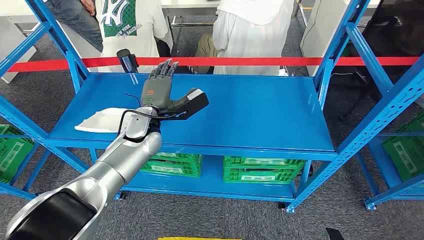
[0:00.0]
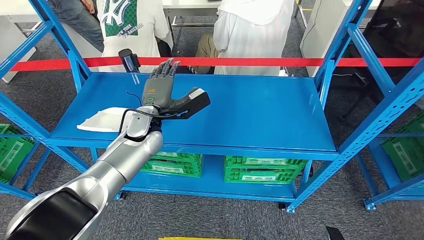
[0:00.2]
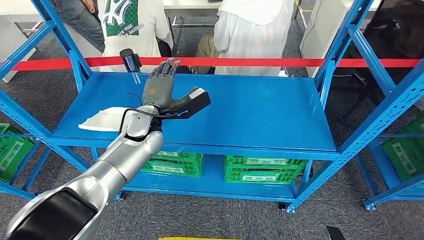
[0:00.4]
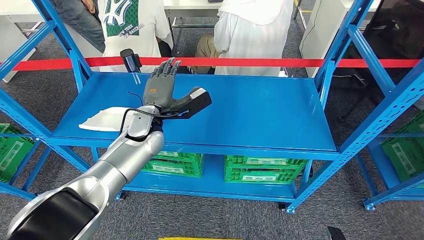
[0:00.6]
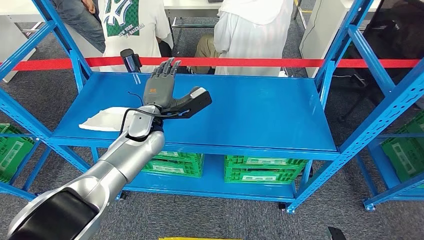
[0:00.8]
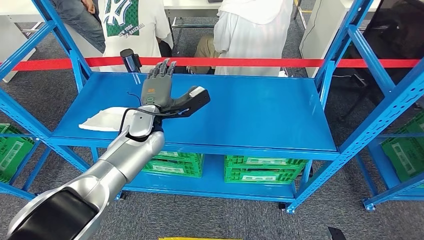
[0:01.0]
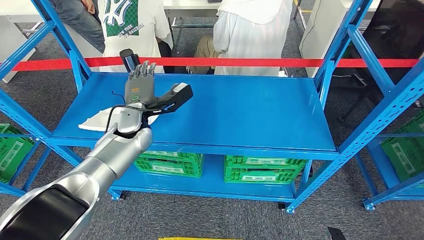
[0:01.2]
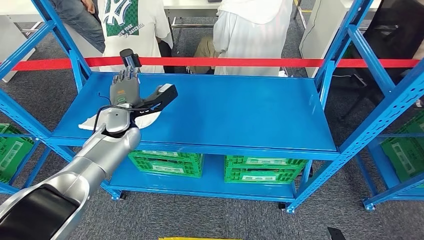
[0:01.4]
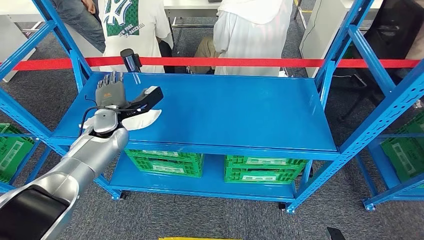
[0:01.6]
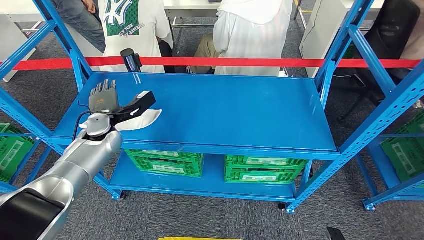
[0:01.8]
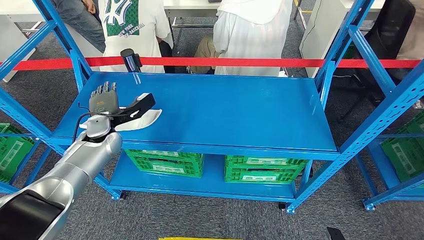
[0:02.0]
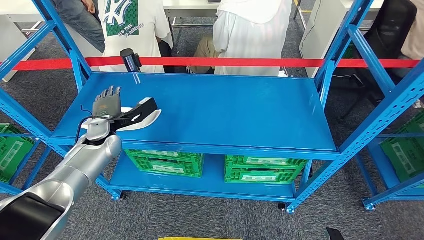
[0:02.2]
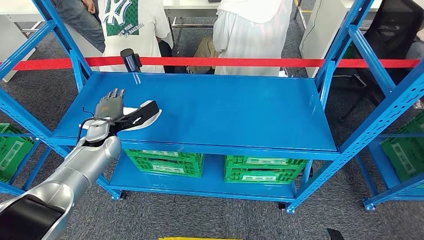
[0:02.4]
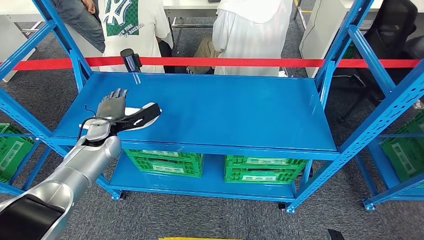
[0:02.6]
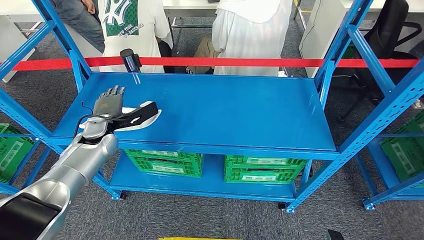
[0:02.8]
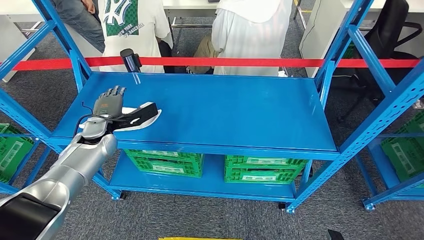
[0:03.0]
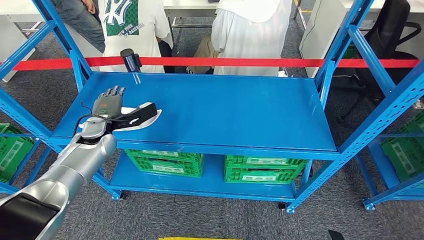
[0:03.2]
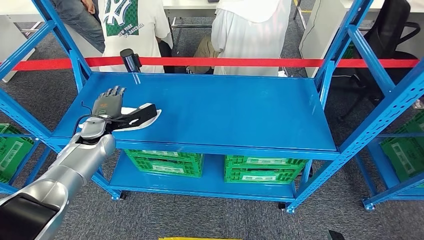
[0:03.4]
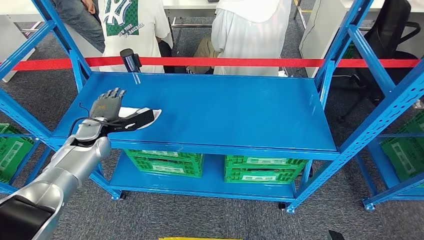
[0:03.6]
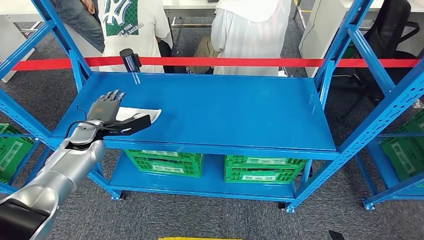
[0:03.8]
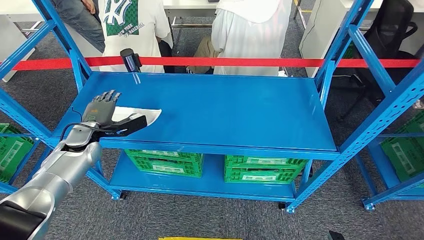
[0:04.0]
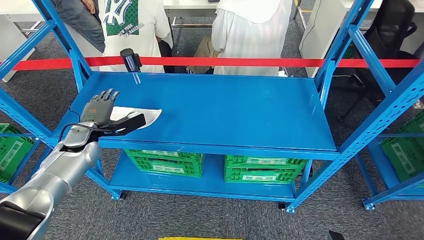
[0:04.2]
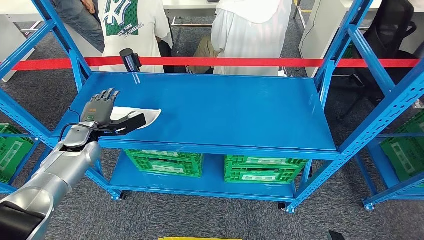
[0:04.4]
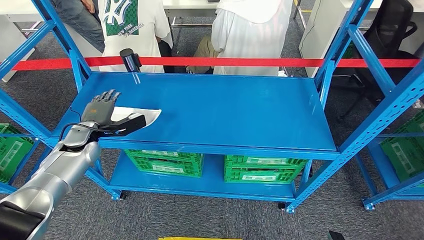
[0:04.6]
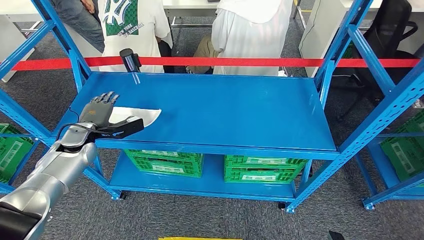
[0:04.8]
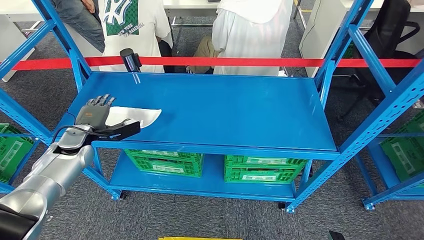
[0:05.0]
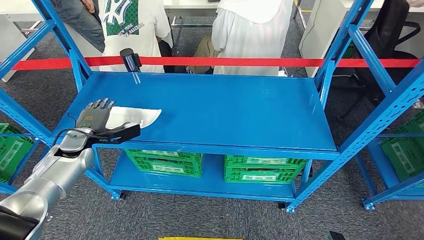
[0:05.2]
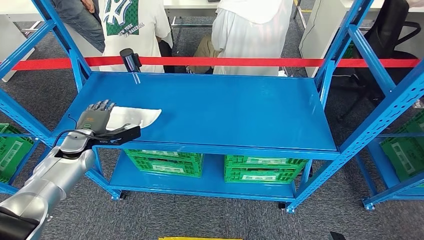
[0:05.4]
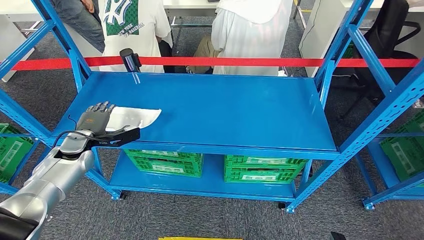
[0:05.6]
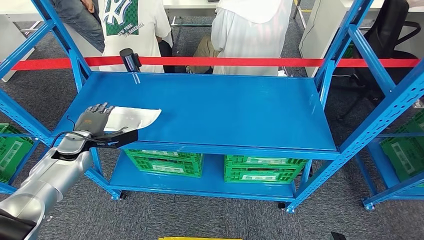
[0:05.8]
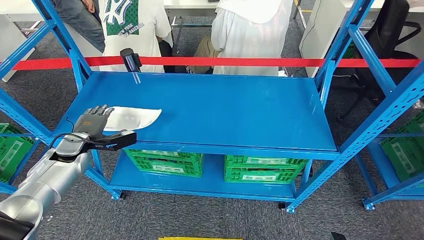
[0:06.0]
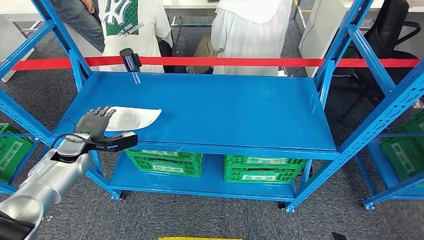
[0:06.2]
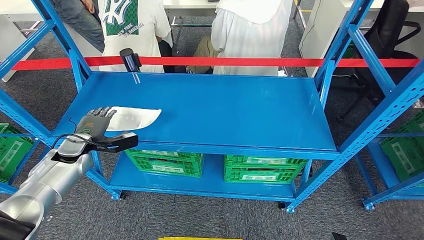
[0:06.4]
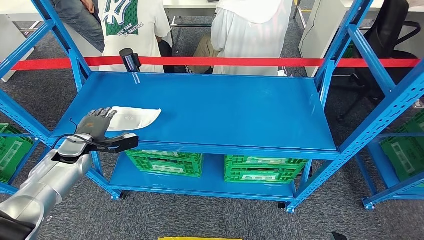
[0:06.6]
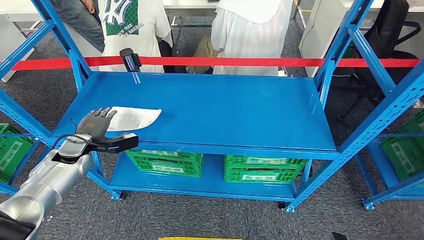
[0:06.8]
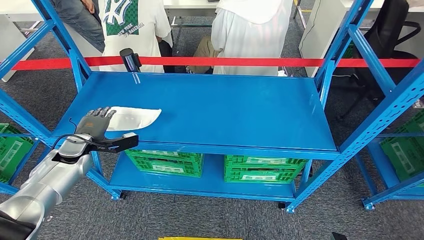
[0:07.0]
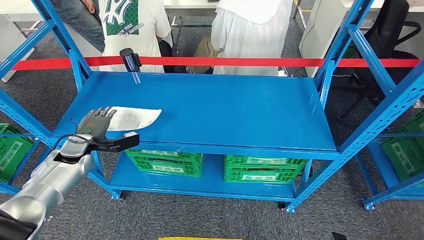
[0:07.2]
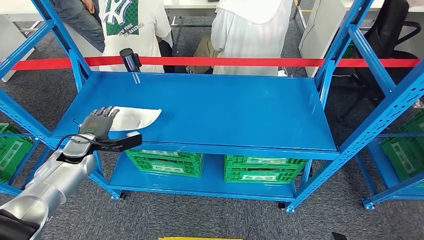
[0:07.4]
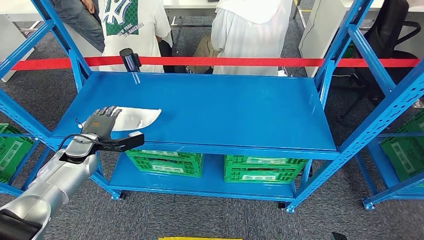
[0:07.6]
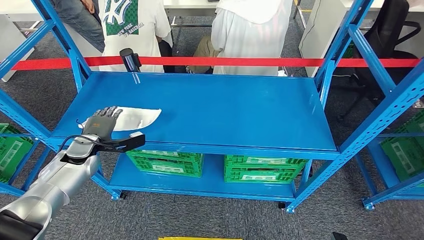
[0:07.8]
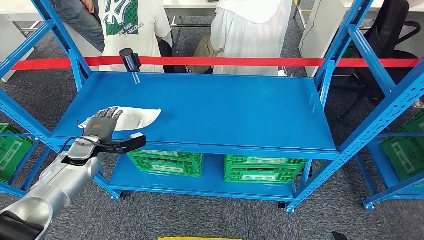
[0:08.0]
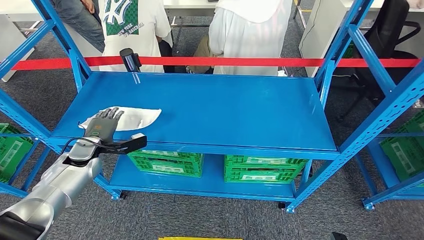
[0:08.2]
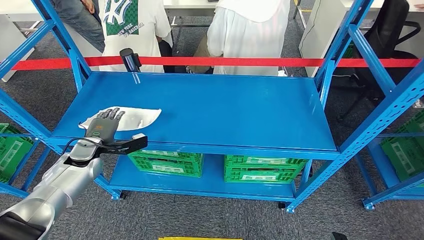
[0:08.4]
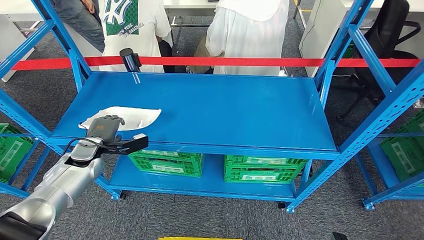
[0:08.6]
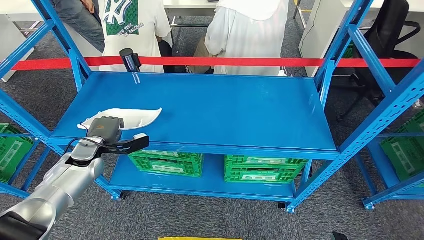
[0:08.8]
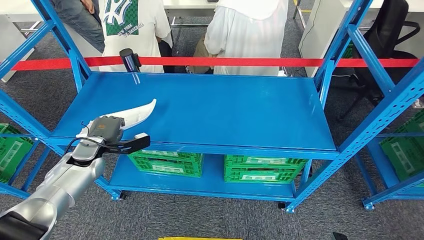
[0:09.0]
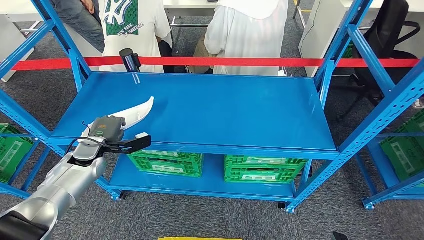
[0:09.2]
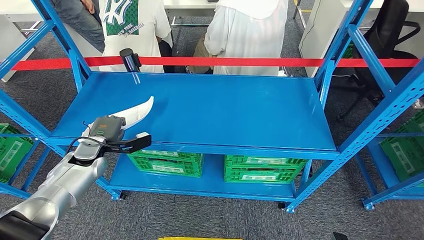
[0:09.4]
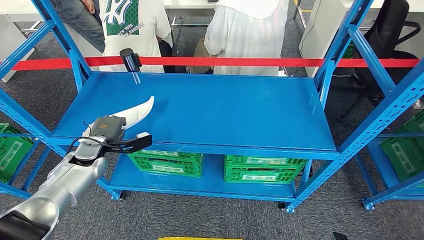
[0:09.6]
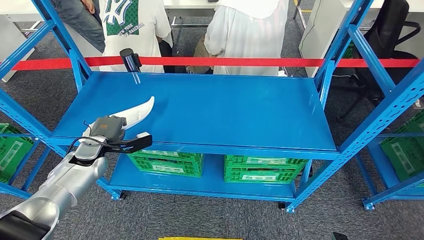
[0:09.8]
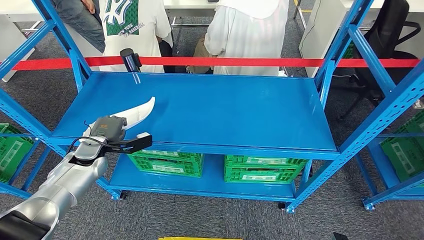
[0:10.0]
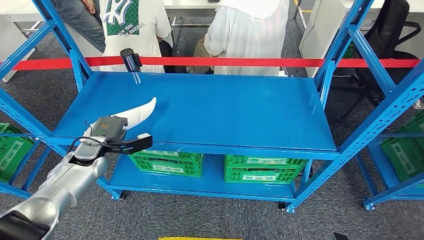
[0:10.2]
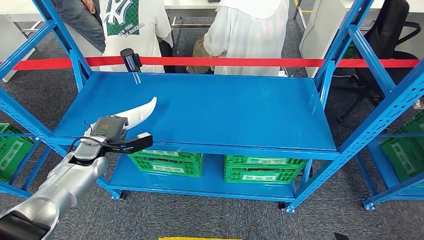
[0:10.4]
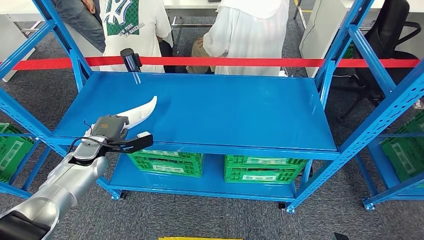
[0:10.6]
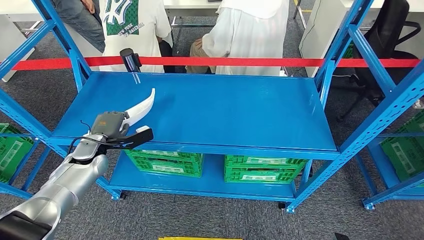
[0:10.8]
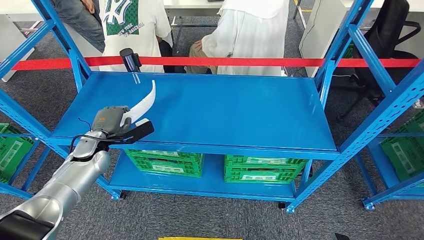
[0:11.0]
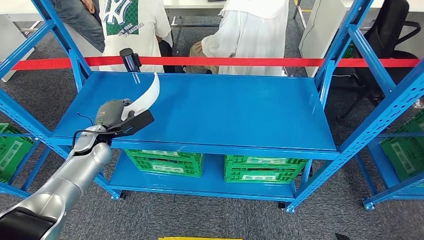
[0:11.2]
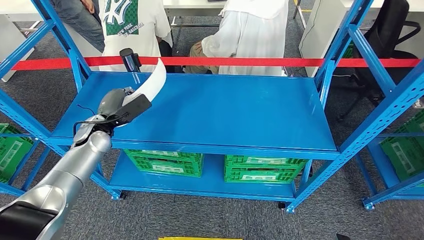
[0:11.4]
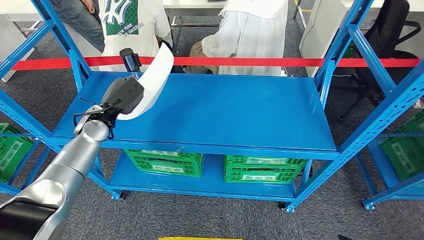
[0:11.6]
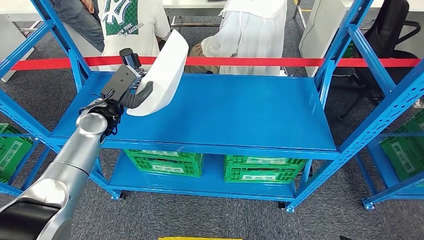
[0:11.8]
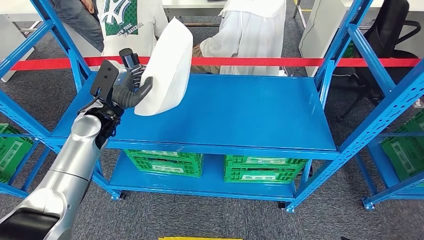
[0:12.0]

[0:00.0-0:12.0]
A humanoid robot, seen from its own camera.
0:01.6 to 0:03.0: The left hand changes place by roughly 5 cm.
0:03.0 to 0:04.4: The left hand goes about 5 cm to the left.
0:04.4 to 0:09.0: The hands stay close to where they were, moving slightly.
0:09.0 to 0:10.4: The two hands keep their place.
0:10.4 to 0:12.0: The left hand travels to the right, upward and forward by some 15 cm.

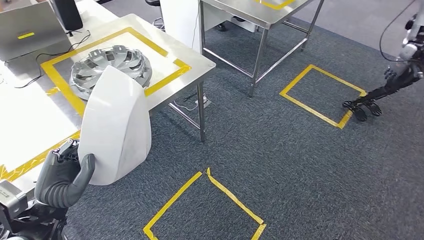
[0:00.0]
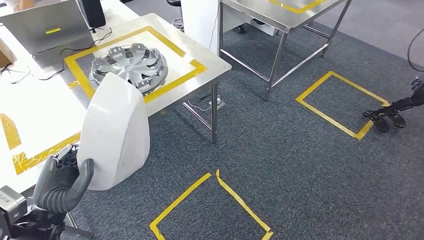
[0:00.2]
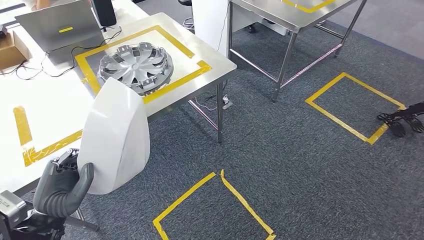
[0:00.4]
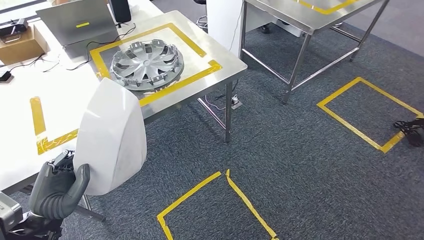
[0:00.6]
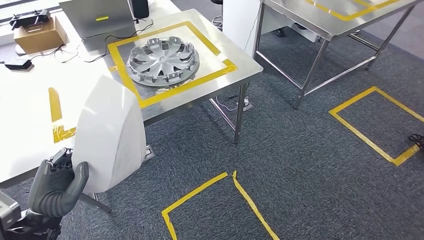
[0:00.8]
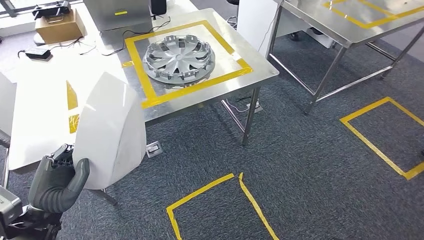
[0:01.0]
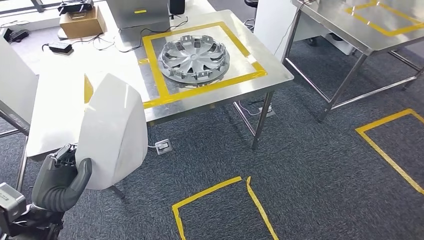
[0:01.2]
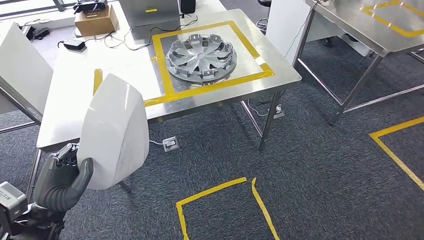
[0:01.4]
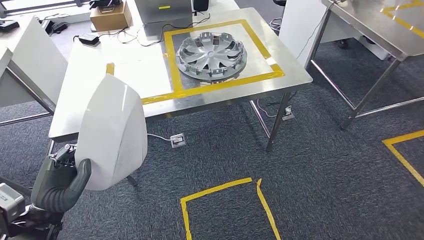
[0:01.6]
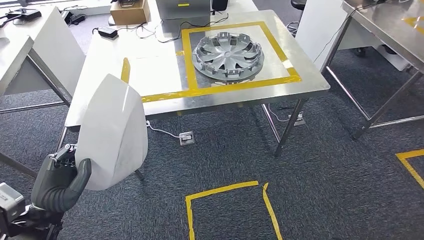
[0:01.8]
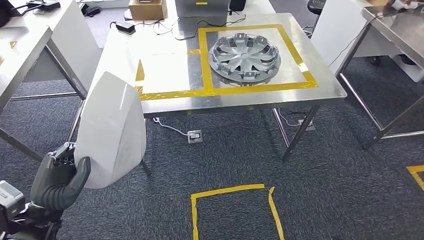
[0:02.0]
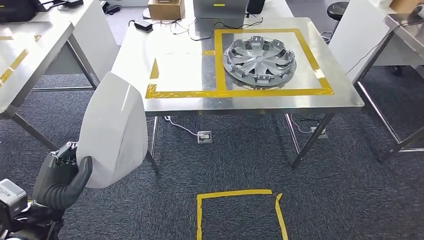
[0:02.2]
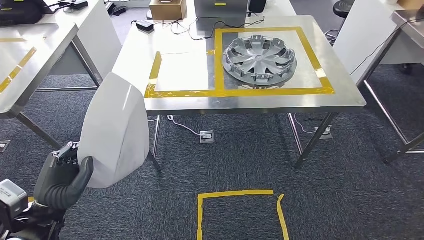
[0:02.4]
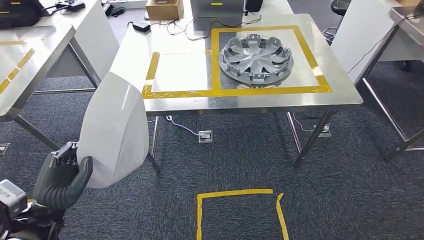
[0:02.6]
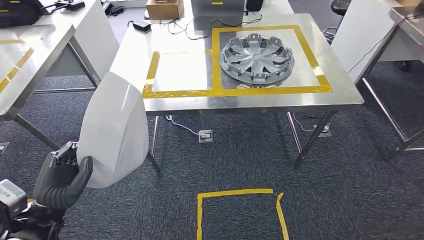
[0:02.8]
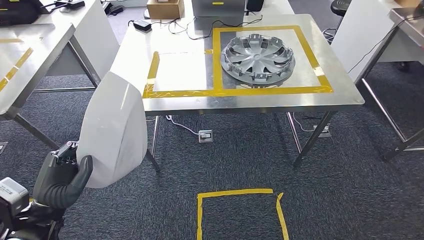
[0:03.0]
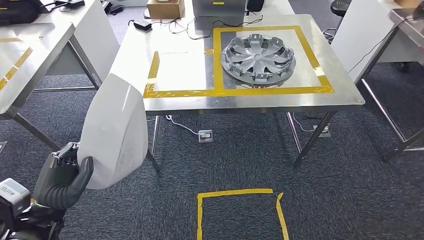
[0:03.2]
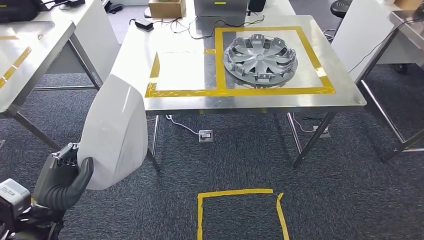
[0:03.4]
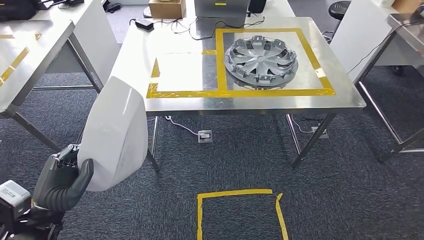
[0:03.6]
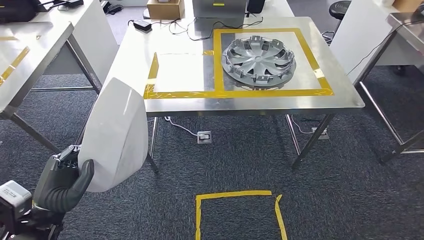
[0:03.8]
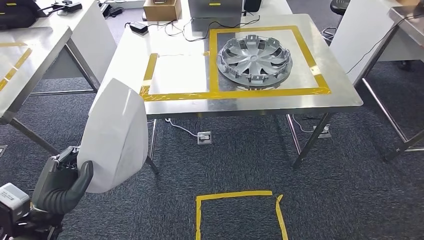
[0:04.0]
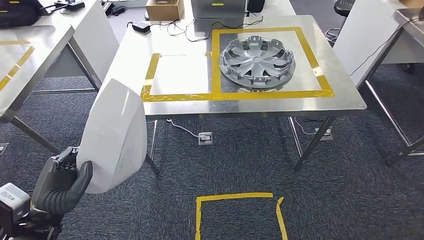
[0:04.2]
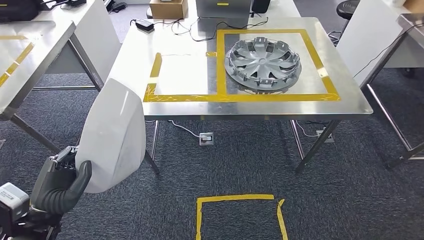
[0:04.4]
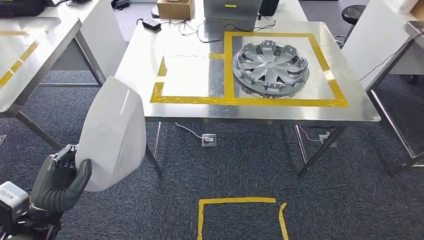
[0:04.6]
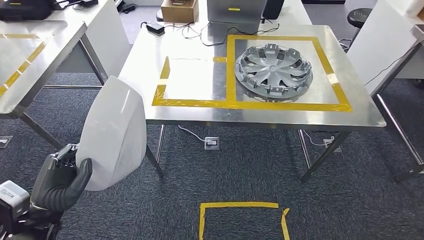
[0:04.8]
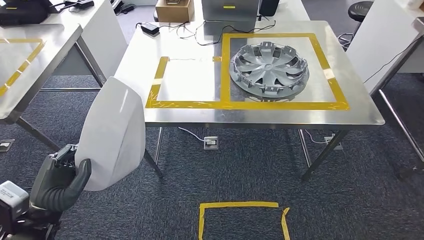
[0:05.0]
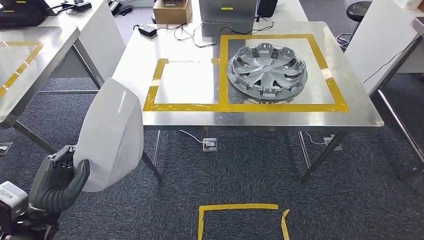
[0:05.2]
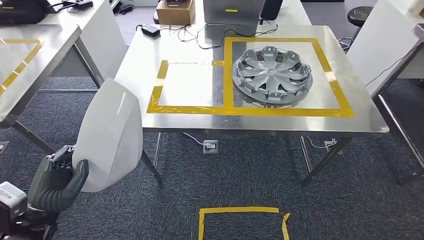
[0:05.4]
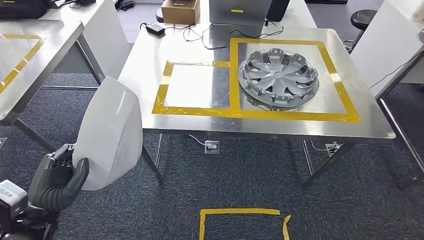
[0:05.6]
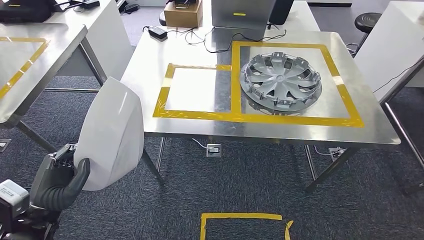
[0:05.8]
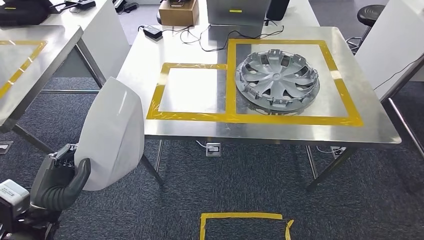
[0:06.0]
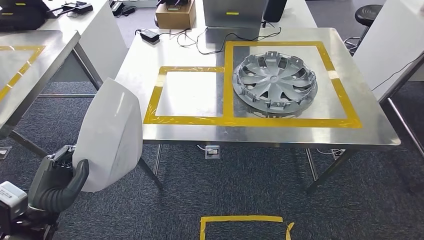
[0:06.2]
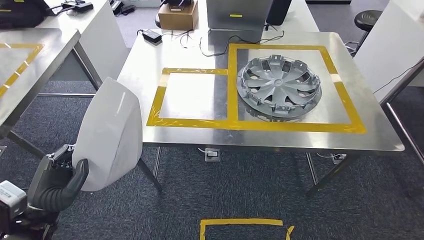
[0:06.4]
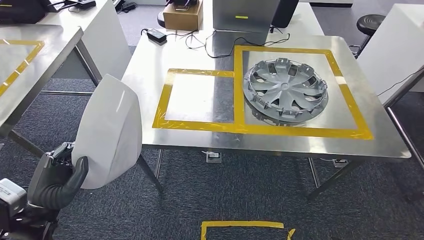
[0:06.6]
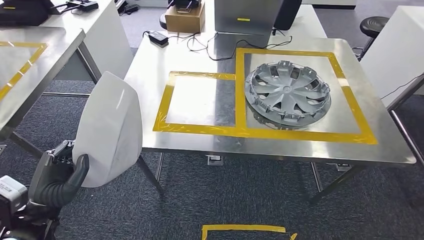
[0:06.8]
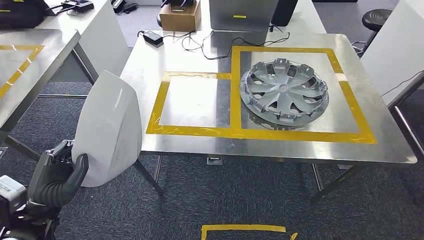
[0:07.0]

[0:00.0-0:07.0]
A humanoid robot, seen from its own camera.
0:02.8 to 0:04.2: Both hands stay about where they are.
